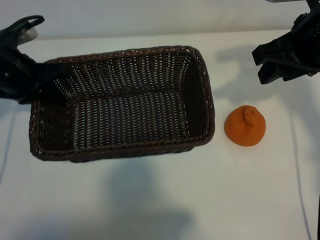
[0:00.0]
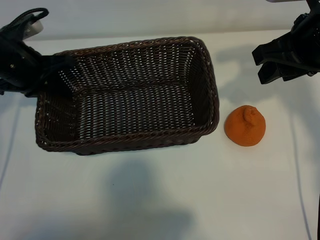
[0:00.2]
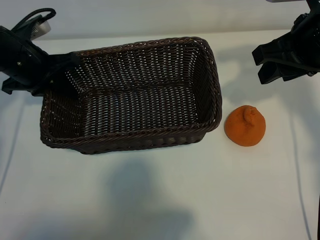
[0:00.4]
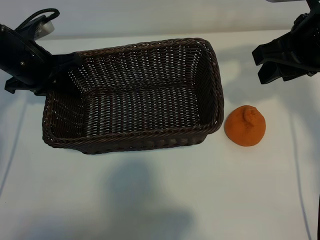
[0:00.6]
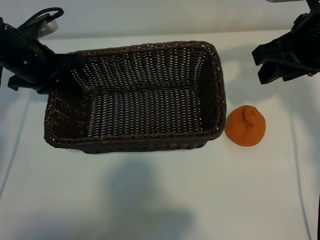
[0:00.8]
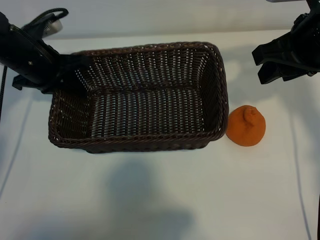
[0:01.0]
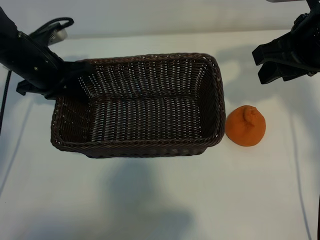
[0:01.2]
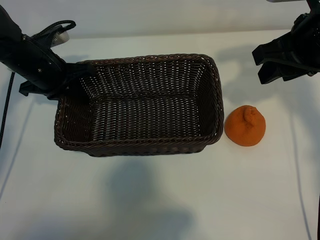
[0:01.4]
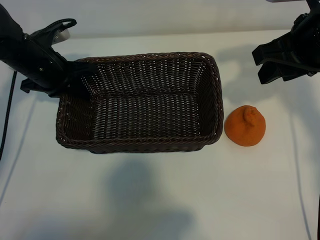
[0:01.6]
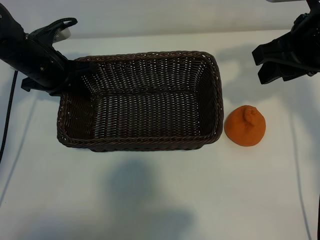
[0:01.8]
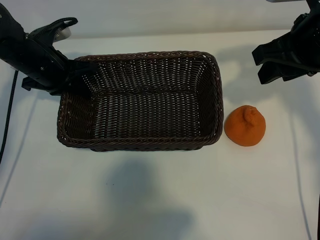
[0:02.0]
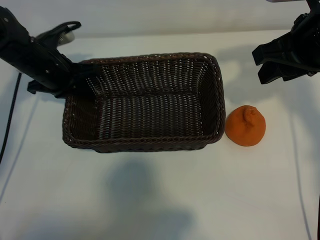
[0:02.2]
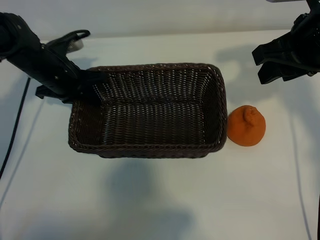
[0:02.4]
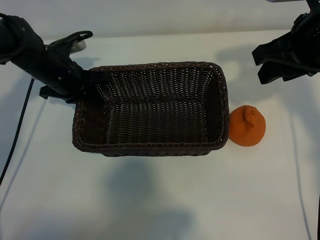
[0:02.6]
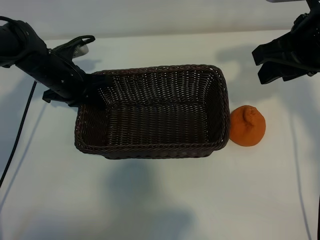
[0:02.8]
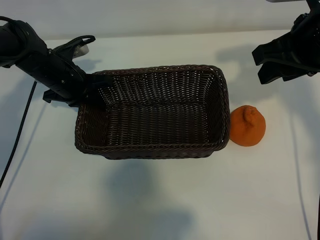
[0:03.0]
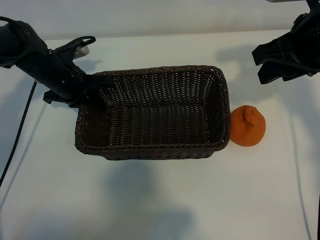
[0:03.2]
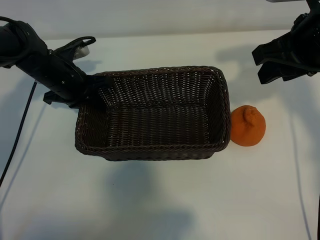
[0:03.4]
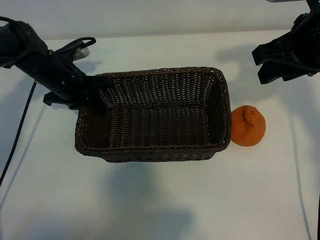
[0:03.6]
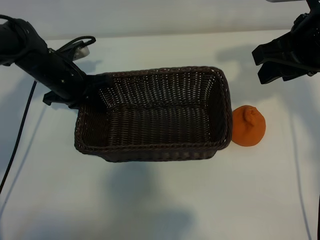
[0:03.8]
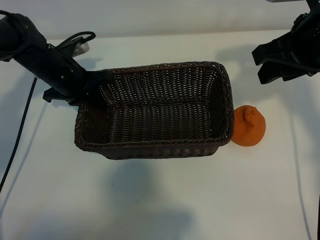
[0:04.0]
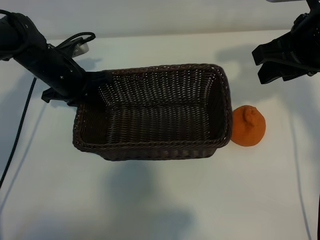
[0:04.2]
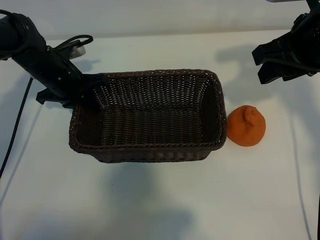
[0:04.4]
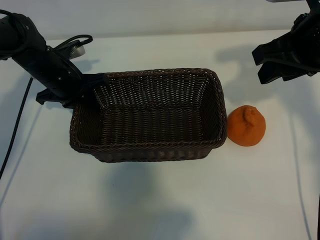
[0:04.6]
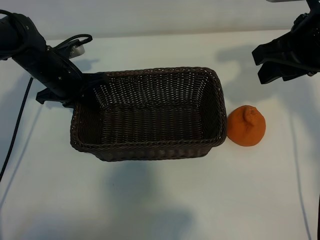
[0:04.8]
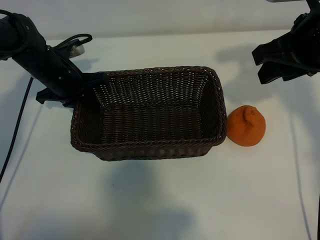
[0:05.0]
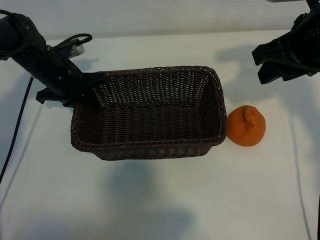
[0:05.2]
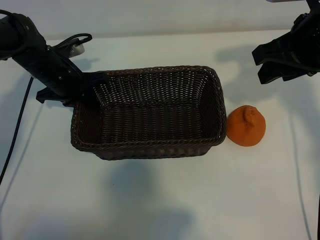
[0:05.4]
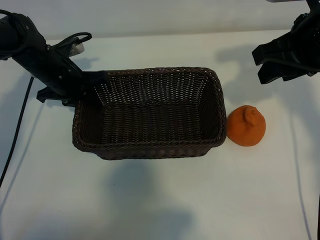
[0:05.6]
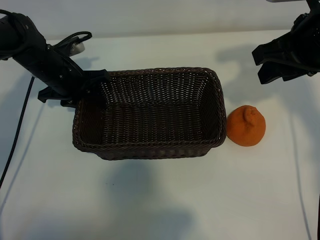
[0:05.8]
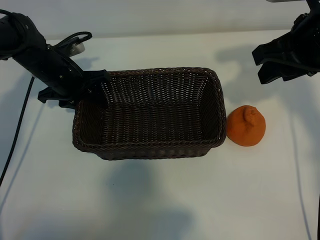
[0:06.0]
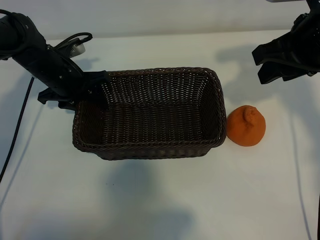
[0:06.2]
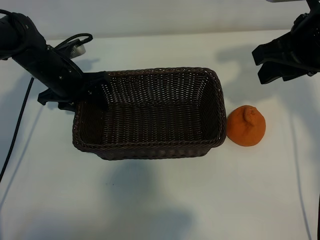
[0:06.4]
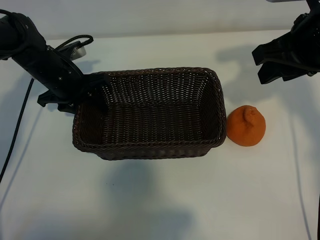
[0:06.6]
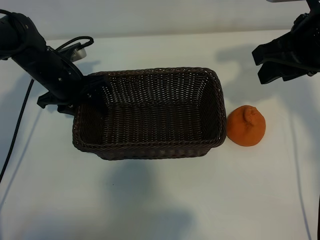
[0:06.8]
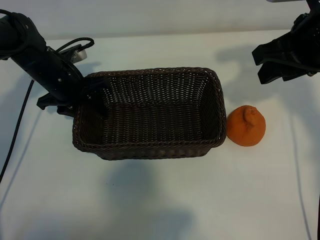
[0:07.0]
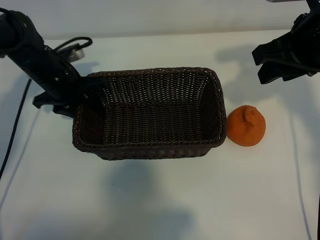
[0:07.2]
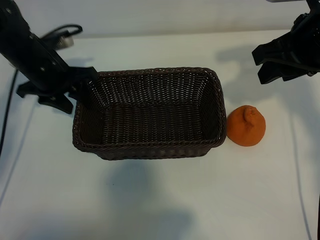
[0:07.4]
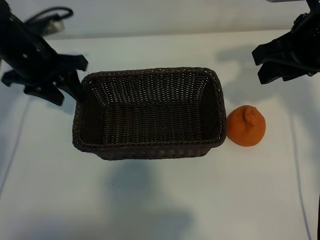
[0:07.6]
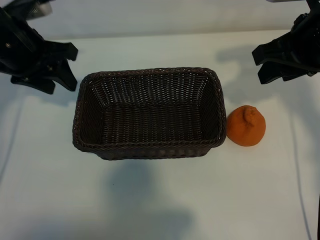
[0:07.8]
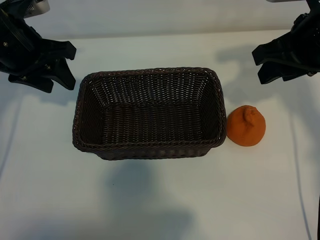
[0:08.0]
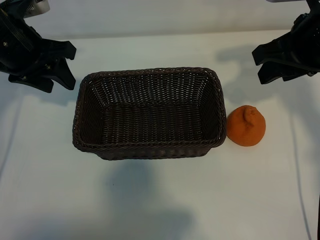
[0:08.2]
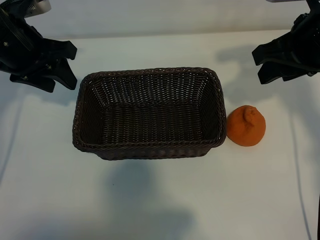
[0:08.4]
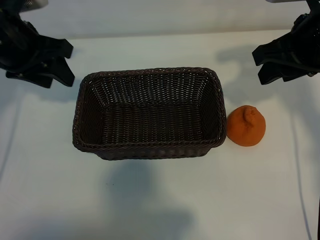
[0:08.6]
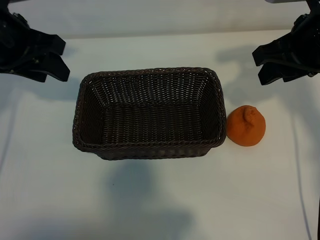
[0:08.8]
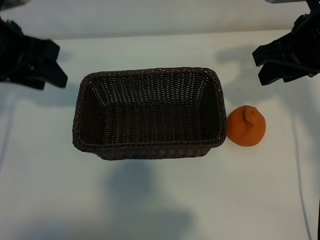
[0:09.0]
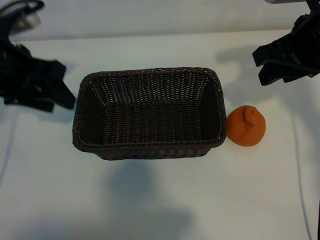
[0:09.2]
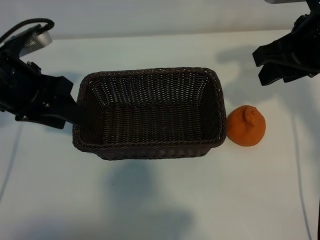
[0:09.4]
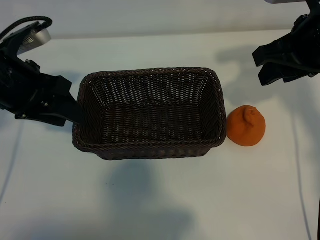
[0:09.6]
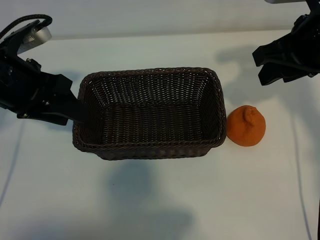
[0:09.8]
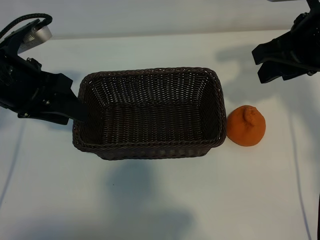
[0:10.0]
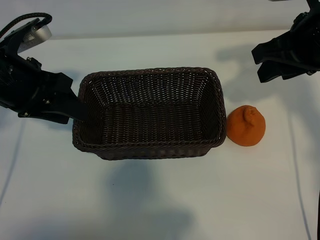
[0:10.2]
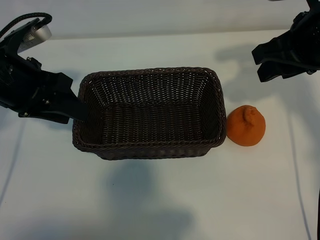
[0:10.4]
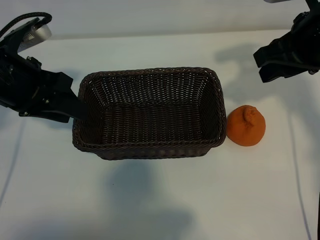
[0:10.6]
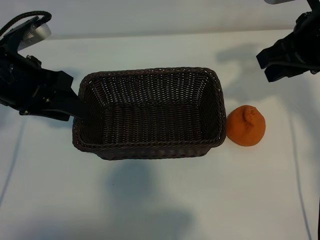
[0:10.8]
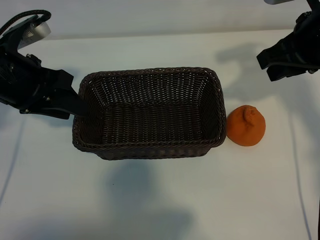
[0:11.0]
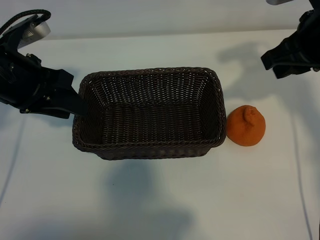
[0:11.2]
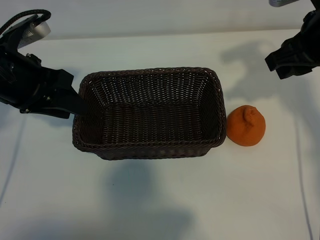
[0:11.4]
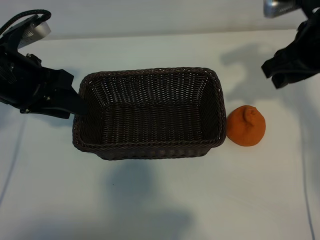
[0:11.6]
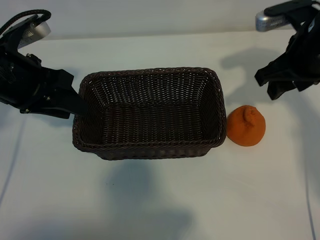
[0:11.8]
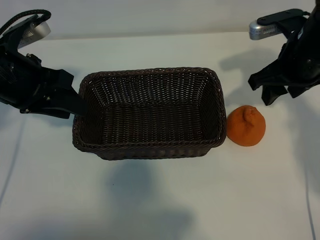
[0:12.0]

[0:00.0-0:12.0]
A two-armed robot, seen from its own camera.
Task of the whole recording: pick up the orange and put it into the basket.
Step, 0:00.0 to 0:05.6: Place the basket in the center of view with left gripper.

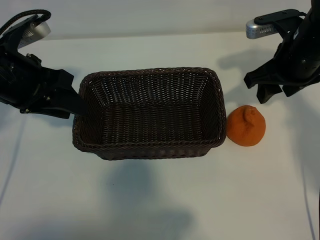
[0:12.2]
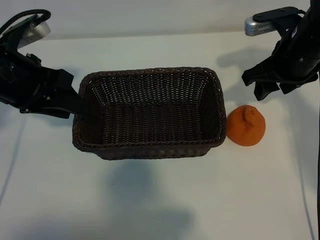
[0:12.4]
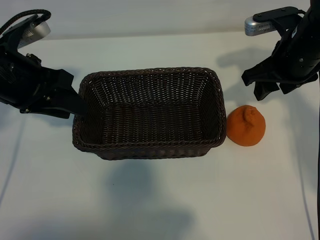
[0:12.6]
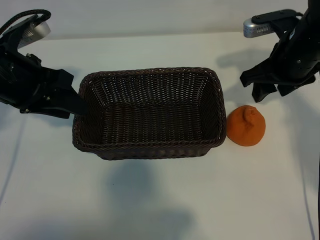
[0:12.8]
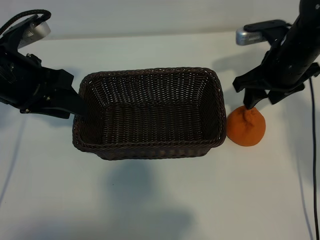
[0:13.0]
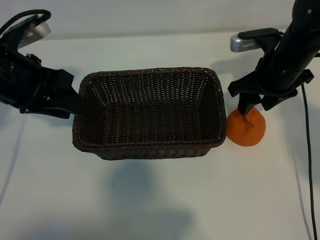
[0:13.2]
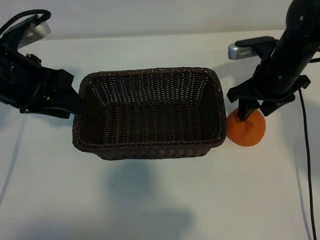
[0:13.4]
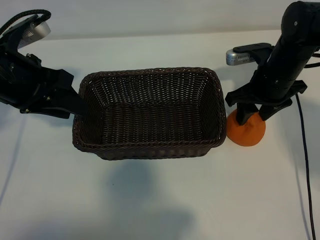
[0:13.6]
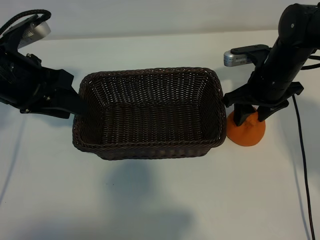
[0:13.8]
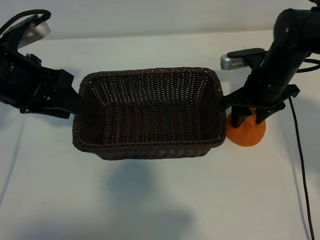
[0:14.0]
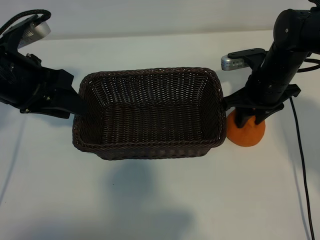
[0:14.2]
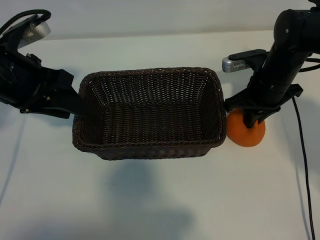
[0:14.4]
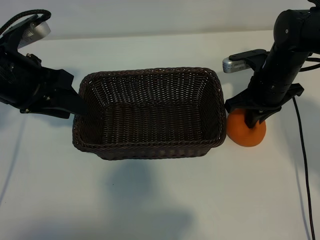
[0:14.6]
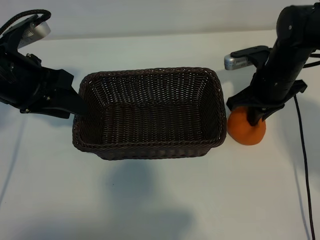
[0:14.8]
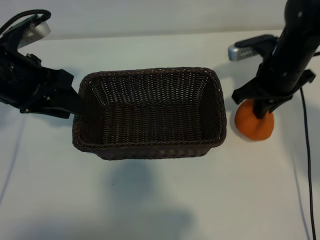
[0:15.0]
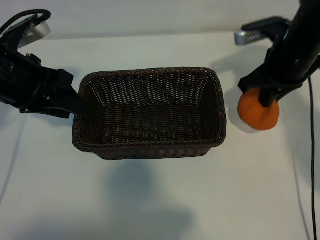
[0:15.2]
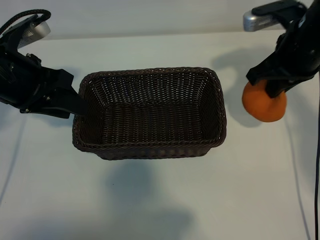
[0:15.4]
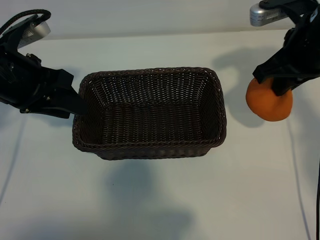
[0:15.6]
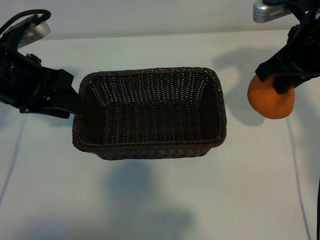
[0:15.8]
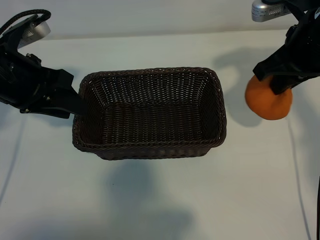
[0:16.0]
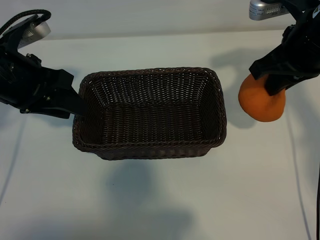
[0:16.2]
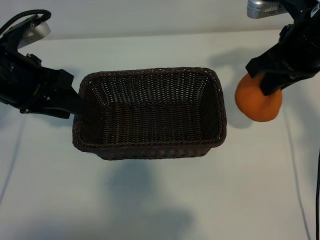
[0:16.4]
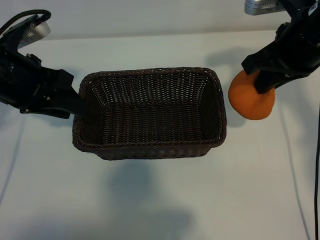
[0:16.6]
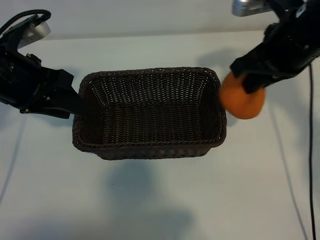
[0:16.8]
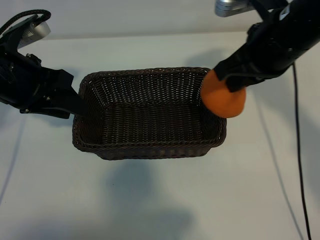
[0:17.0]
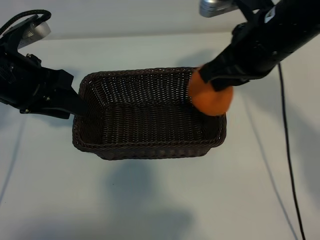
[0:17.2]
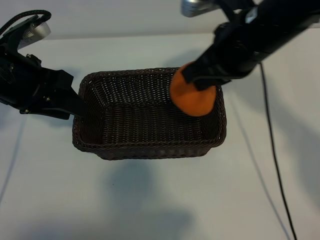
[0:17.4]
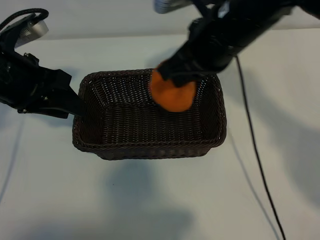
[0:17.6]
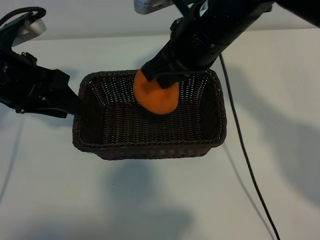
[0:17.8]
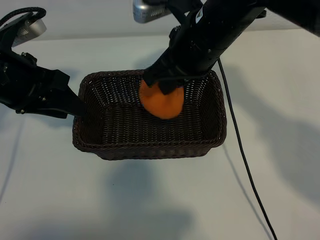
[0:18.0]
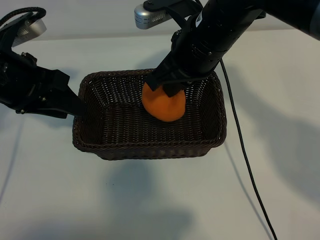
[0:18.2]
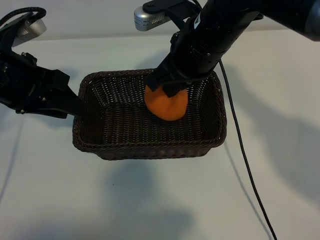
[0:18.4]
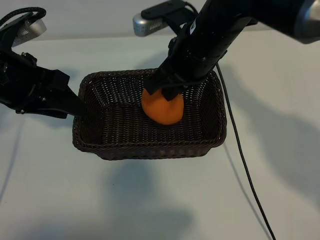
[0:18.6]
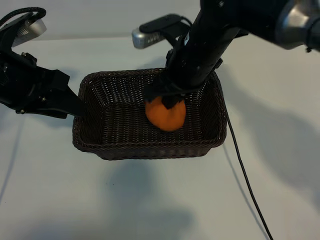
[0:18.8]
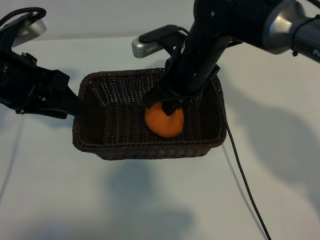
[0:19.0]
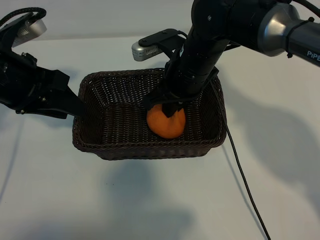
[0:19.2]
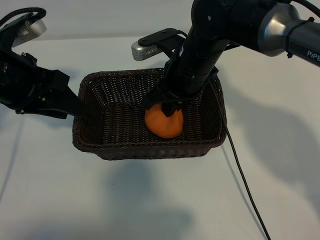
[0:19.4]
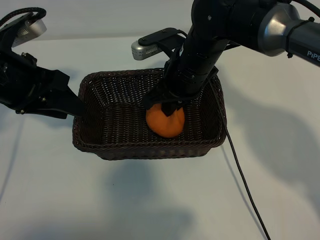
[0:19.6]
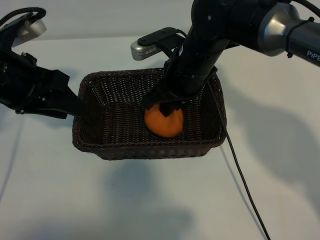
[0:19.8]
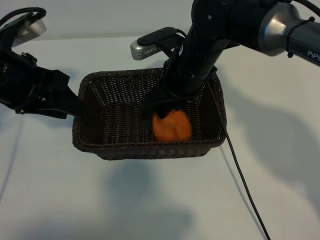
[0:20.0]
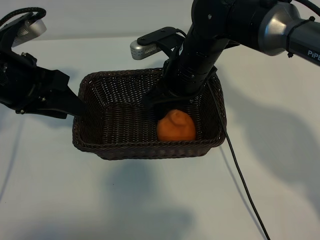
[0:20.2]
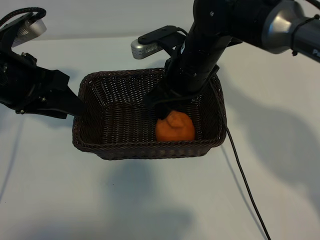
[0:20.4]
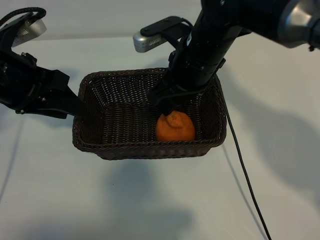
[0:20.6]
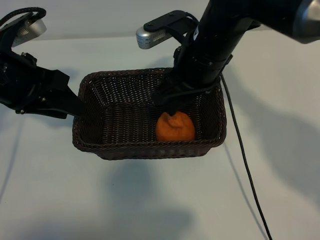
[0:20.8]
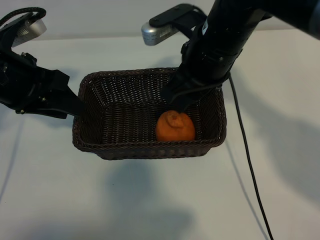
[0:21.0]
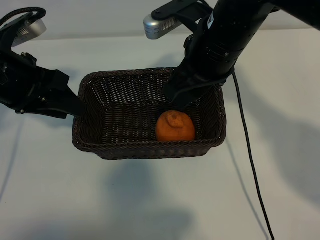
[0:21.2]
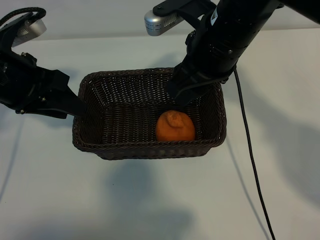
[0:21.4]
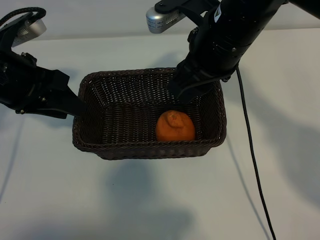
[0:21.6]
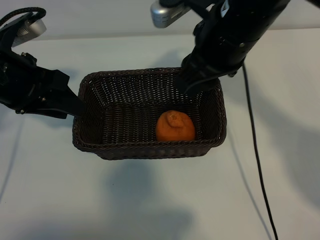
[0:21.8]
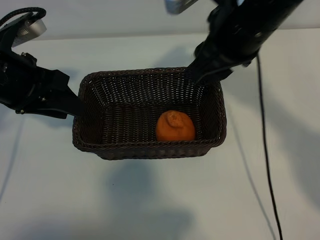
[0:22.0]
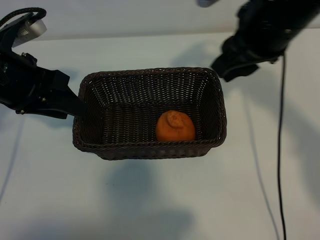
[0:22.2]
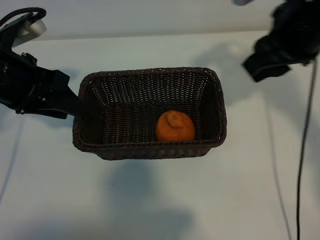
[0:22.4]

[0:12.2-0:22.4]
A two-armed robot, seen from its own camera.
Task of the whole recording: pick up the orange and put it into the basket.
Step, 0:12.2 to 0:14.2: Grasp the orange with right gripper.
Step, 0:14.6 to 0:20.0: Place the orange in the basket with right gripper.
